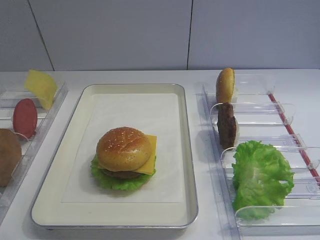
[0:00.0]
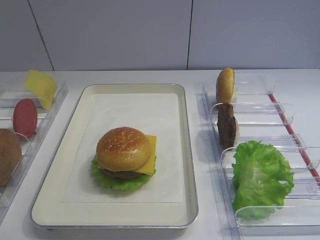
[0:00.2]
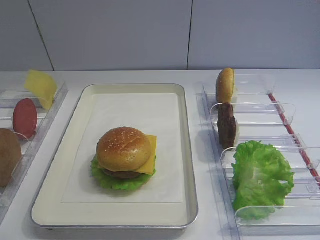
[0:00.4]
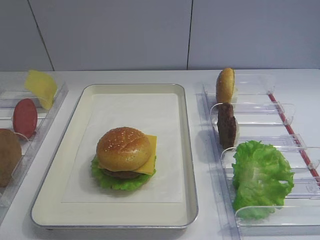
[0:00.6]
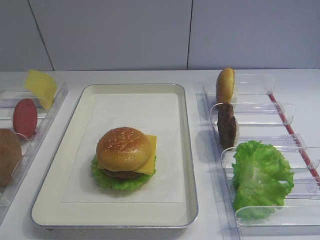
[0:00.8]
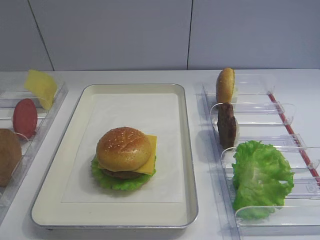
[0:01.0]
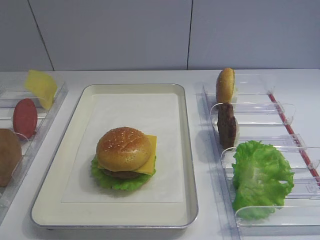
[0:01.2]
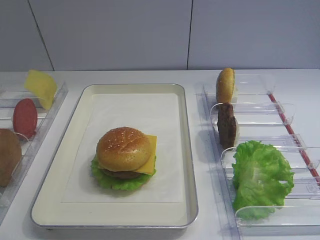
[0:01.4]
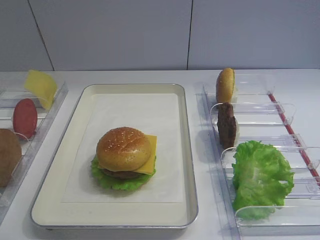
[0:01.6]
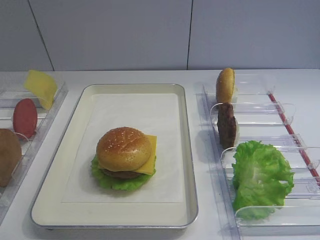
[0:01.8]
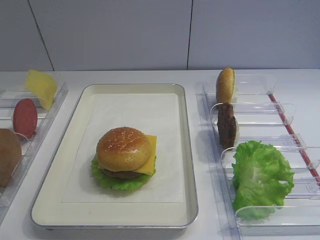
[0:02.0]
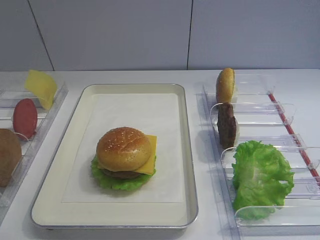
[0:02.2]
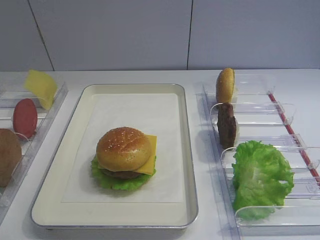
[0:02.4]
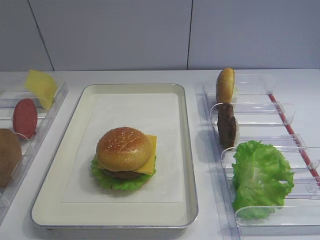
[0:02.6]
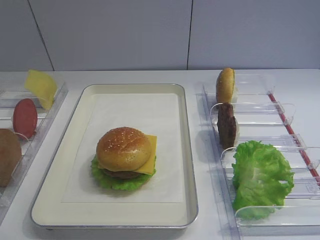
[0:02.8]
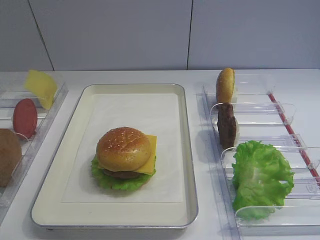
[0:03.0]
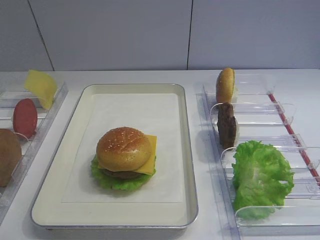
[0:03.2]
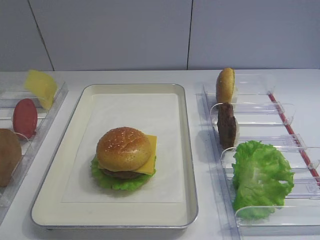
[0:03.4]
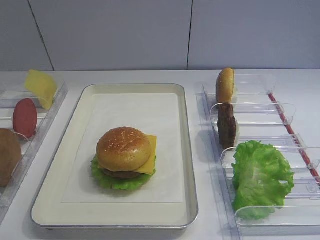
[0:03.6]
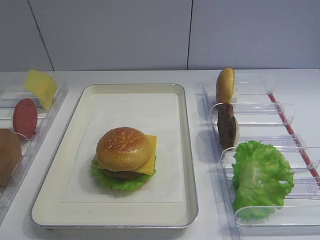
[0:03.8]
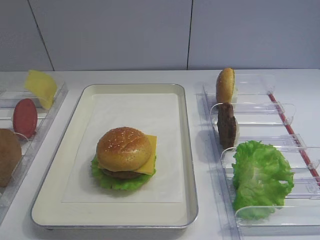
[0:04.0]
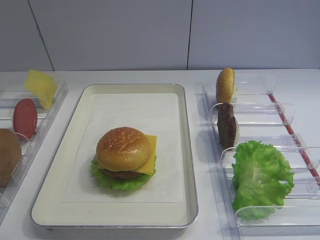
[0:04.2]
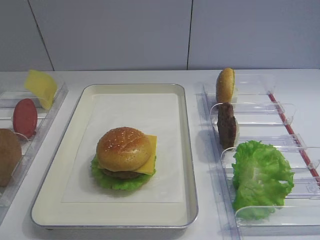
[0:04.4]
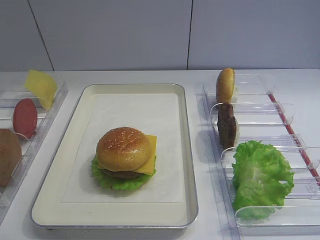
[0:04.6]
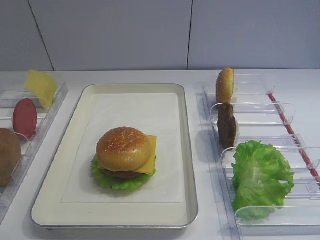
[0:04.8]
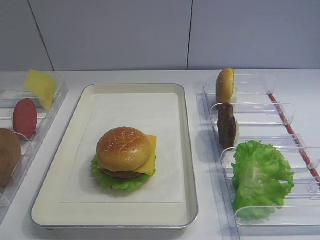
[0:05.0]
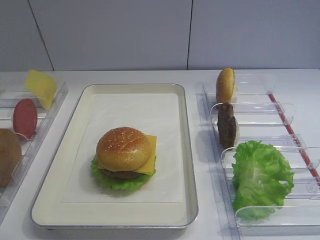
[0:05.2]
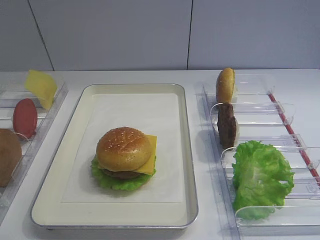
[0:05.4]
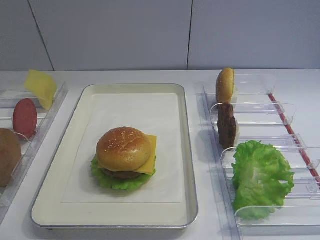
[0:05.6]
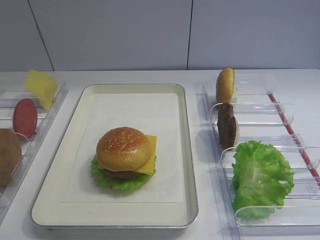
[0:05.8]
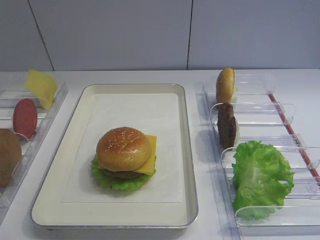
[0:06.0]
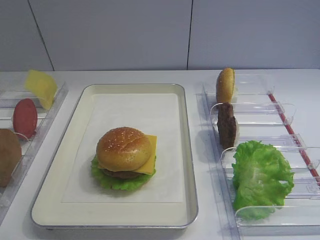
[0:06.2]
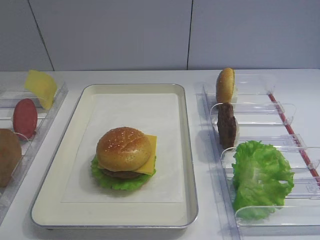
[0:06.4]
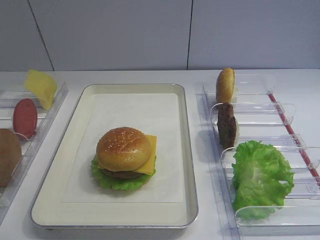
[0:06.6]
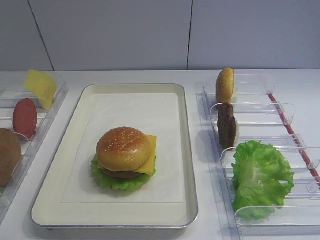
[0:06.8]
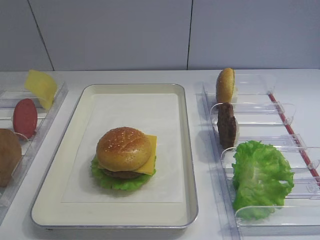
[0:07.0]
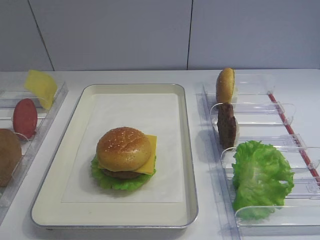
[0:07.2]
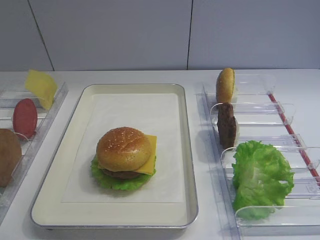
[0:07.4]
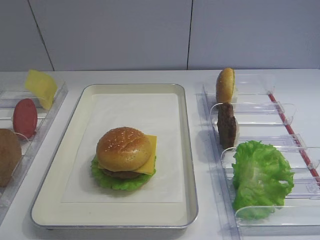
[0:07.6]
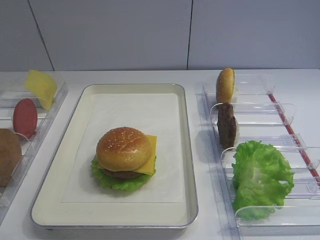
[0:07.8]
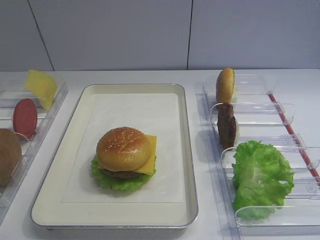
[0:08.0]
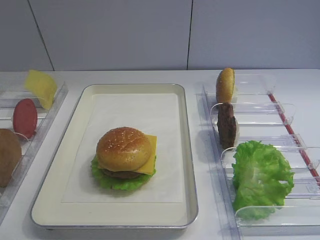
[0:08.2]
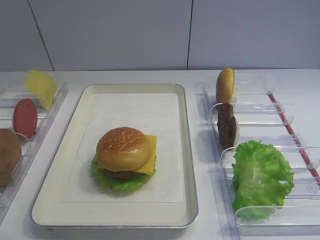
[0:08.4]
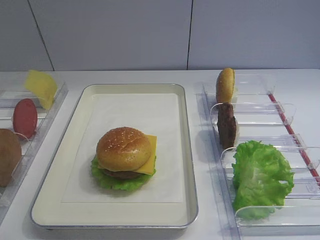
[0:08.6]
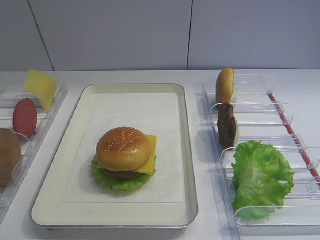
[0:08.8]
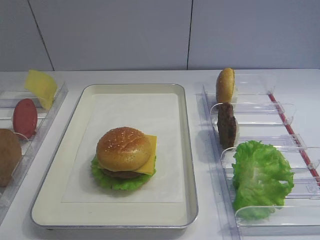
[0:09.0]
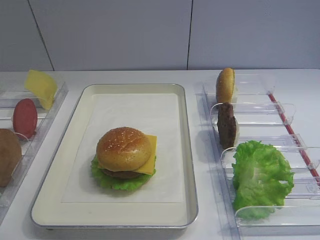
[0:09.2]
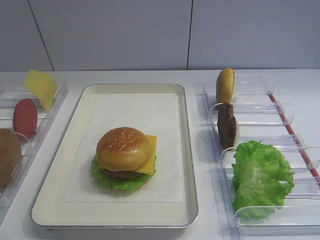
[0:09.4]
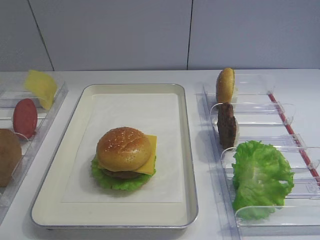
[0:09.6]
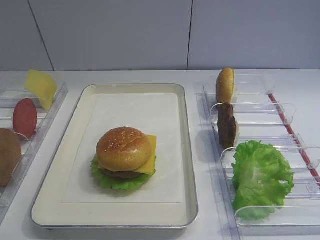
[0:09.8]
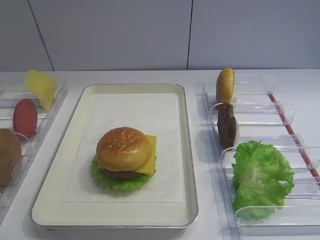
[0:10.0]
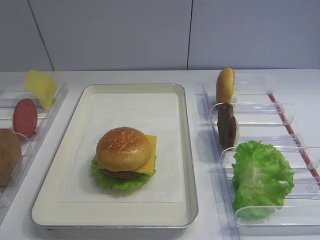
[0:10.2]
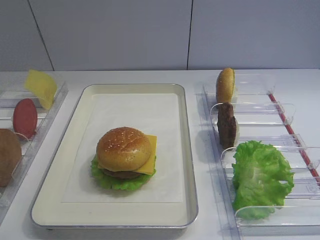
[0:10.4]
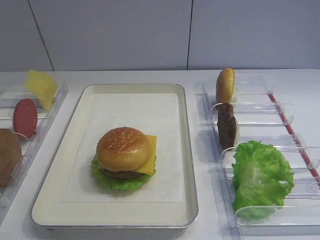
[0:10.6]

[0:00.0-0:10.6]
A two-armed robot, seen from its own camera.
0:00.0 to 0:10.6: Both grippers stay put.

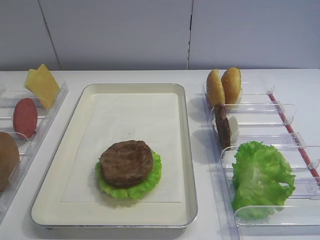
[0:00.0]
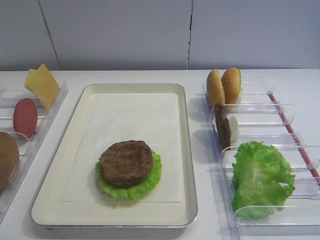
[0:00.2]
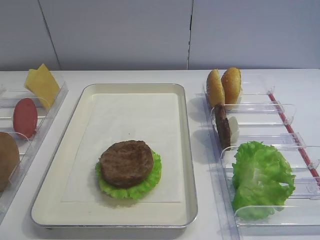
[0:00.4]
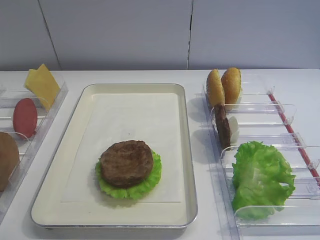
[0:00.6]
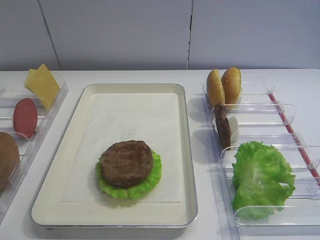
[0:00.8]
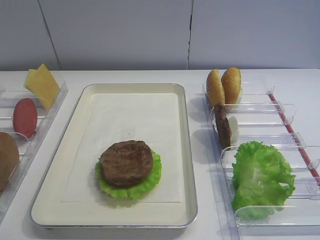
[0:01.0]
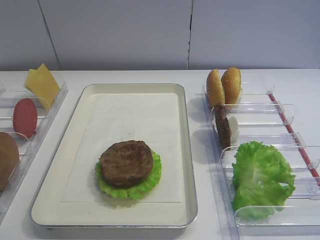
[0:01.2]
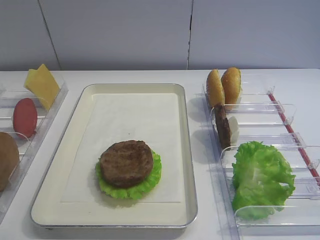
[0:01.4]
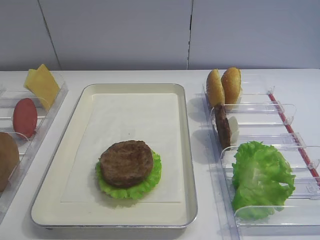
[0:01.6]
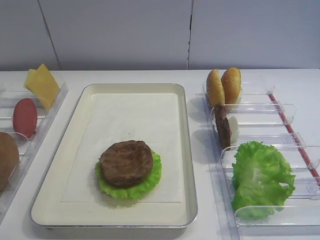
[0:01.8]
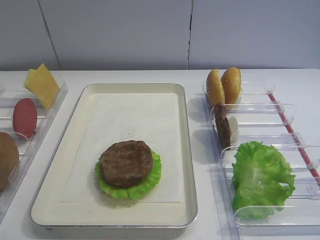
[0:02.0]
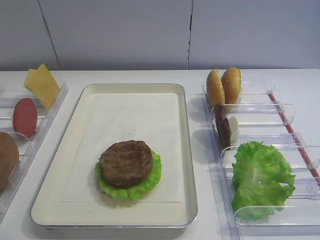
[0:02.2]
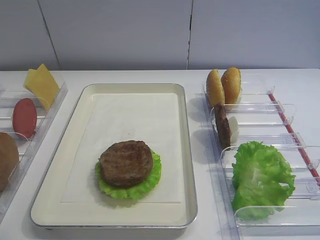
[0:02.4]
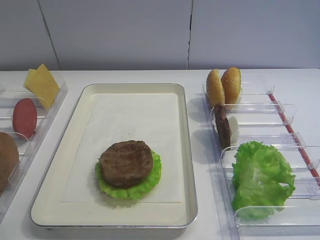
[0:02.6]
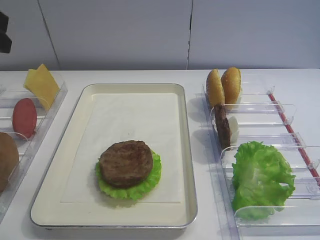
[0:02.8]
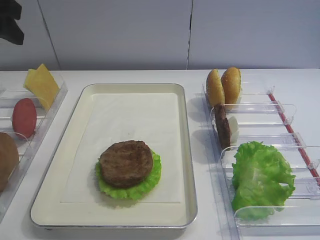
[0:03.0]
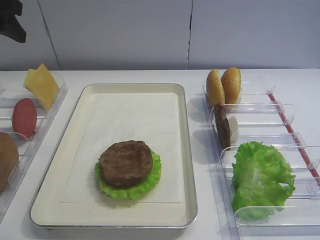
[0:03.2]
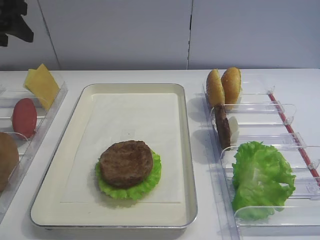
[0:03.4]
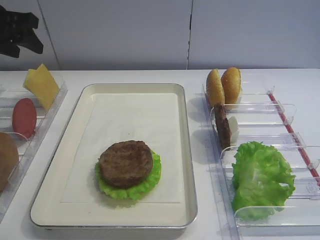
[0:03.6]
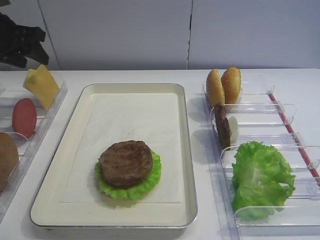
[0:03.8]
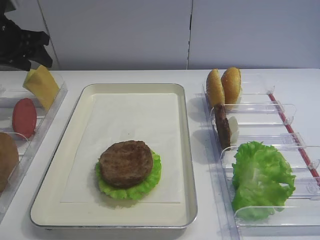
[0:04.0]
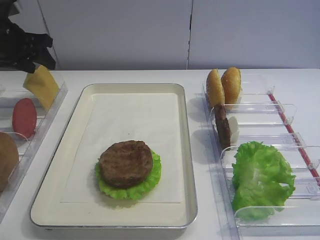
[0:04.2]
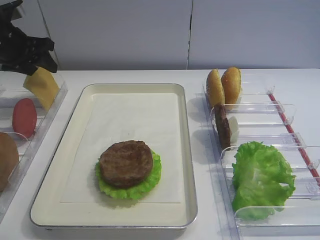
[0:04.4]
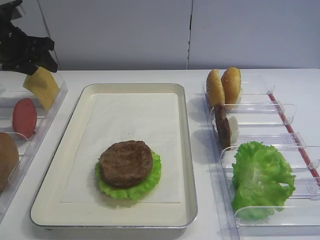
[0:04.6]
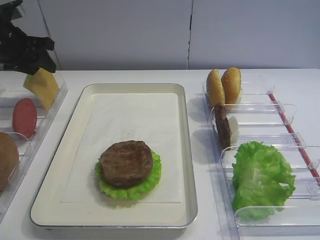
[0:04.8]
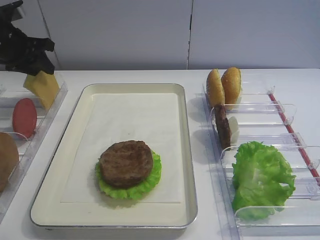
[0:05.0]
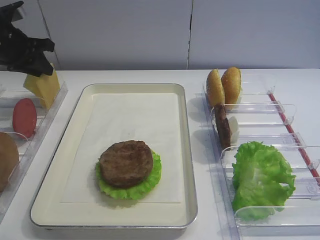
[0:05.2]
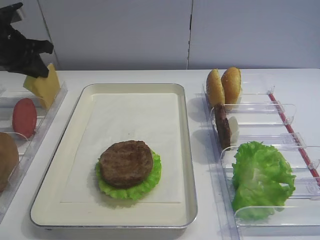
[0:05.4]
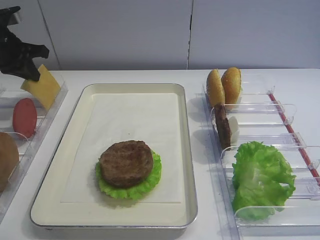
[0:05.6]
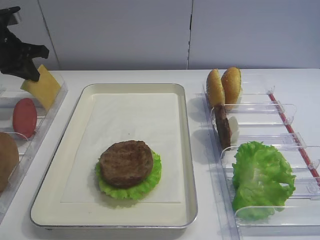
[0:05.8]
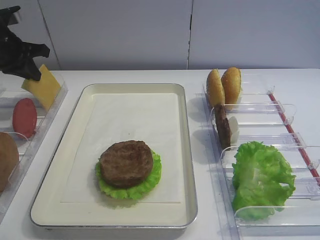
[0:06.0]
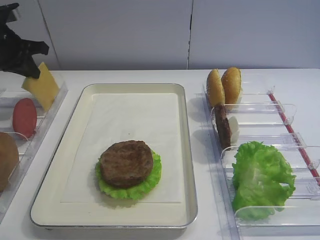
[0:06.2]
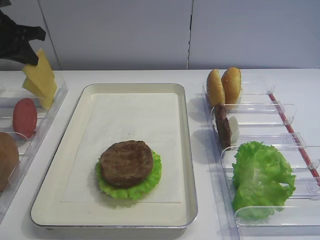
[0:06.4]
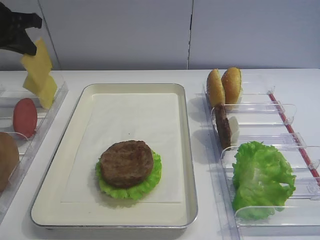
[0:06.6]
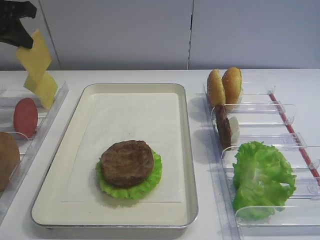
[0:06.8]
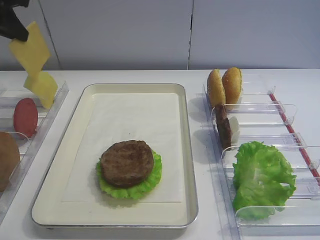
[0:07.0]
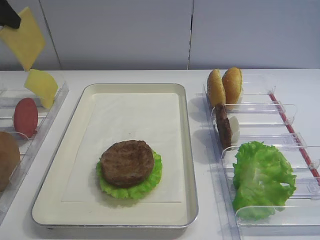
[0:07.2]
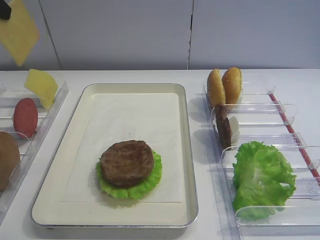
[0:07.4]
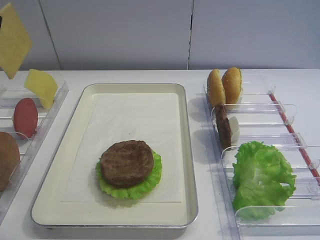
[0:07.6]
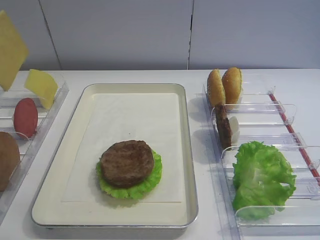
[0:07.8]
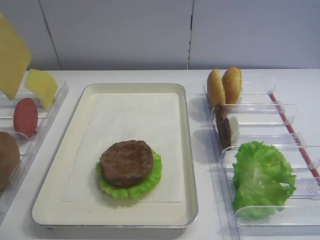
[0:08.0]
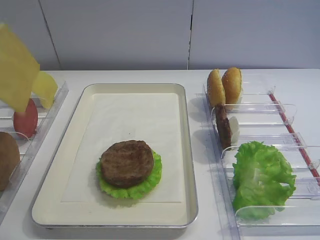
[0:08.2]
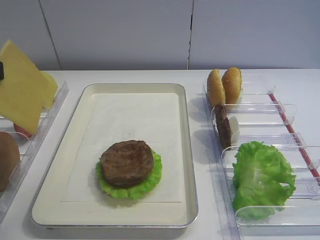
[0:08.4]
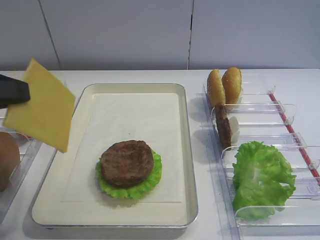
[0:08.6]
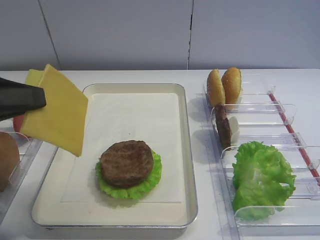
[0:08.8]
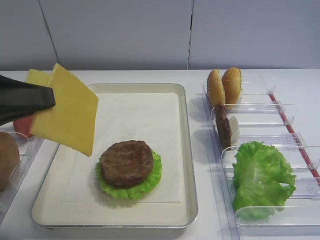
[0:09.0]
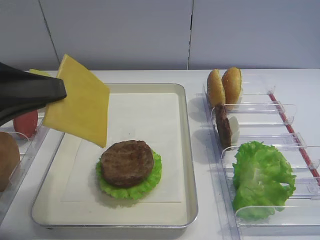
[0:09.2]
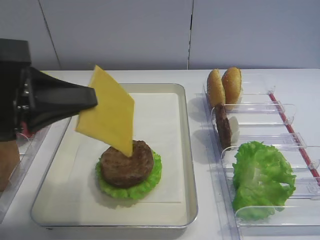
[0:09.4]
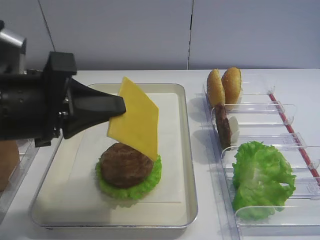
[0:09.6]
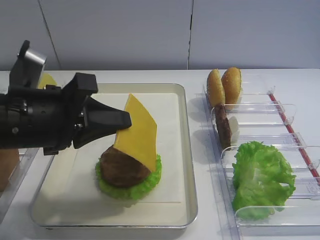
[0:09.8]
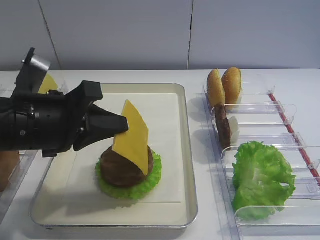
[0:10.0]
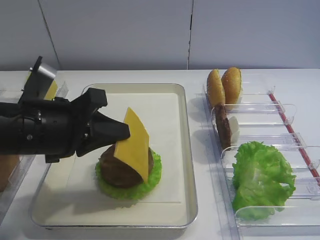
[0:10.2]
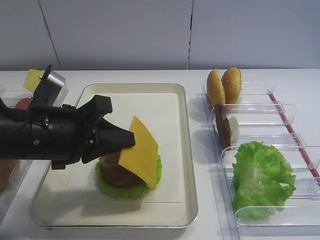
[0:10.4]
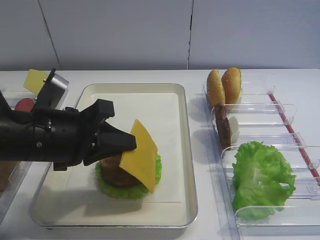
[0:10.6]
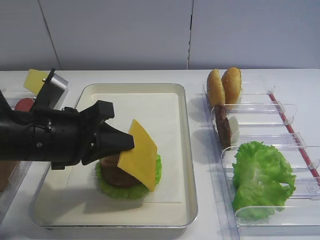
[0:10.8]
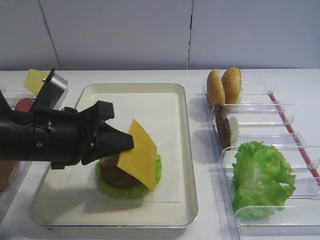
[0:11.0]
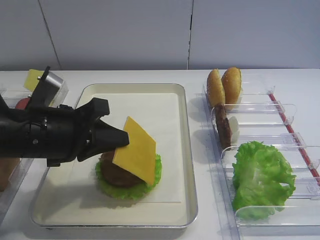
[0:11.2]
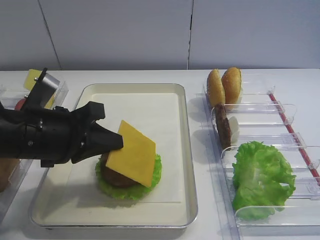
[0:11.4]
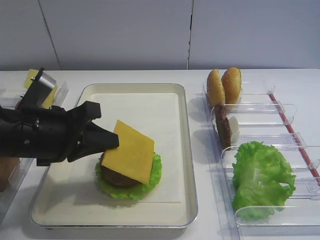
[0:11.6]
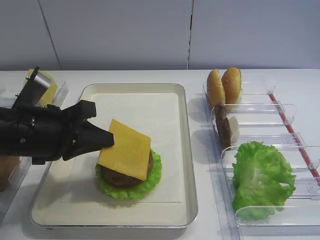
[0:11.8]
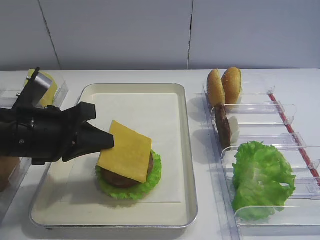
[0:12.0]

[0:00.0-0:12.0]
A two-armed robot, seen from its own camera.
Step, 0:00.0 to 0:06.4: Pick up the cheese slice with the left gripper.
0:01.6 to 0:03.0: The left gripper is displaced forward by roughly 30 cm.
0:03.0 to 0:04.4: The left gripper shifts some 15 cm forward and downward.
0:04.4 to 0:06.0: The left gripper closes.
0:06.0 to 0:07.6: The left gripper moves backward and upward, some 20 cm.
0:07.6 to 0:09.0: The left gripper is displaced backward, downward and to the right by some 15 cm.
0:09.0 to 0:10.4: The left gripper travels downward, to the right and forward by approximately 15 cm.
0:10.4 to 0:12.0: The grippers stay close to where they were, moving slightly.
